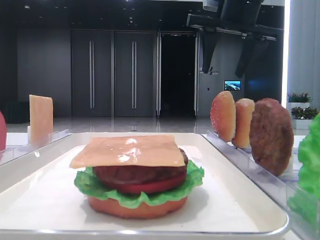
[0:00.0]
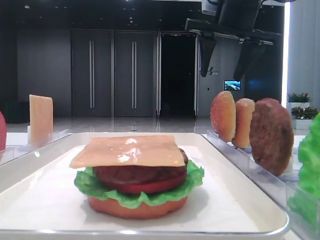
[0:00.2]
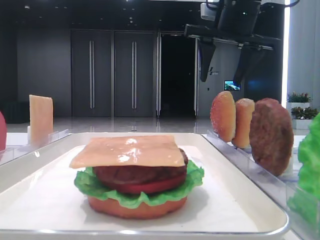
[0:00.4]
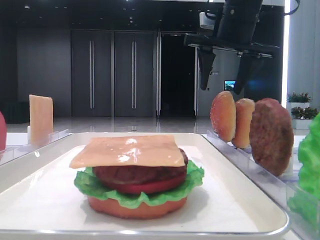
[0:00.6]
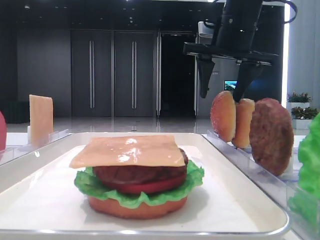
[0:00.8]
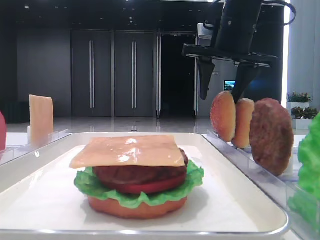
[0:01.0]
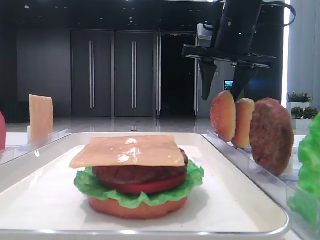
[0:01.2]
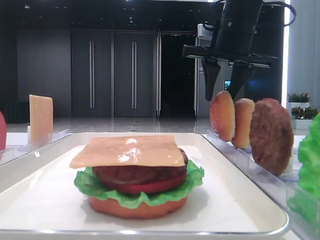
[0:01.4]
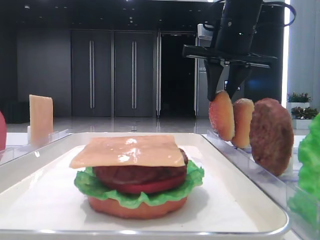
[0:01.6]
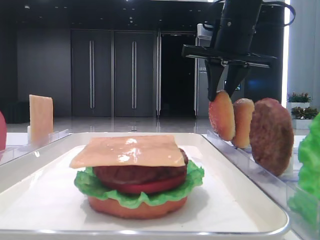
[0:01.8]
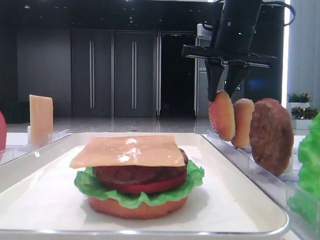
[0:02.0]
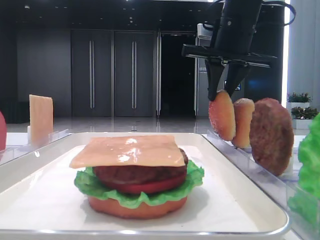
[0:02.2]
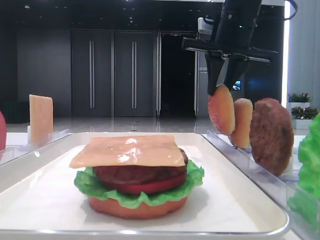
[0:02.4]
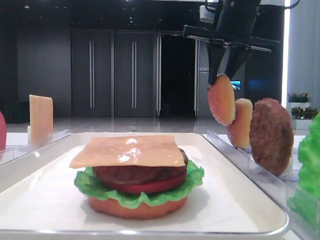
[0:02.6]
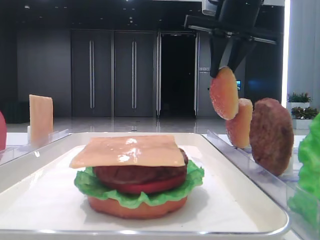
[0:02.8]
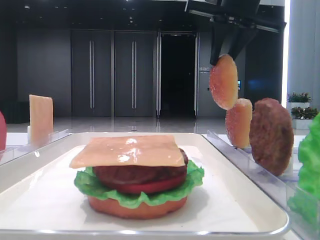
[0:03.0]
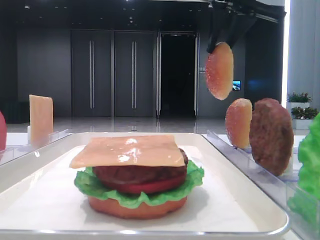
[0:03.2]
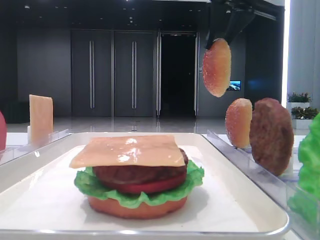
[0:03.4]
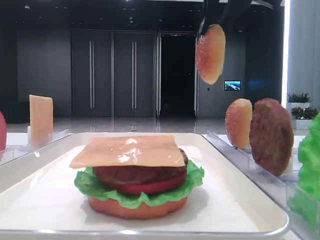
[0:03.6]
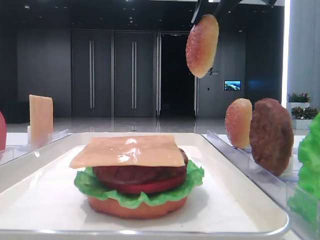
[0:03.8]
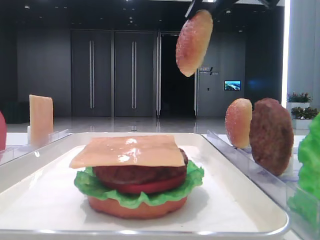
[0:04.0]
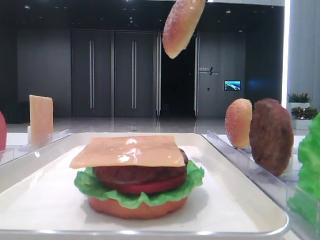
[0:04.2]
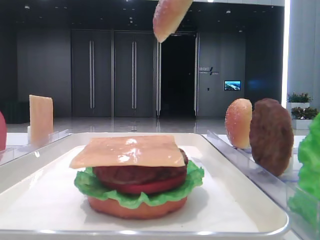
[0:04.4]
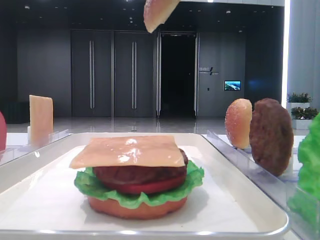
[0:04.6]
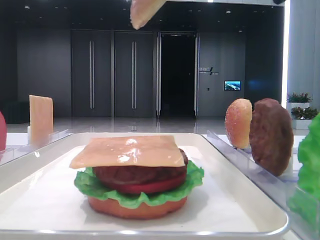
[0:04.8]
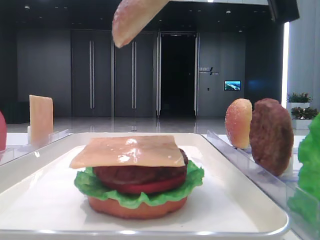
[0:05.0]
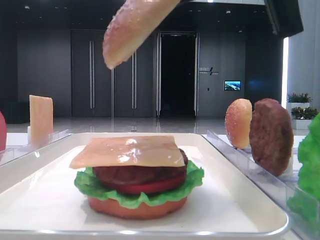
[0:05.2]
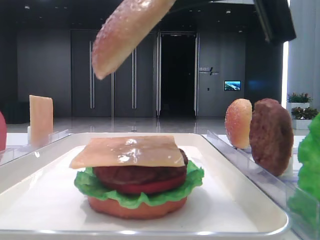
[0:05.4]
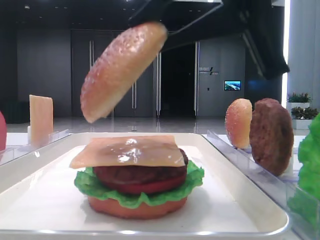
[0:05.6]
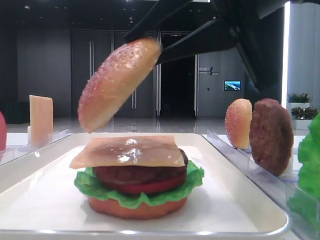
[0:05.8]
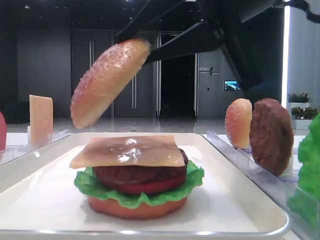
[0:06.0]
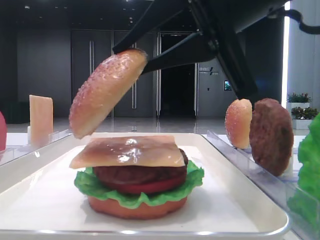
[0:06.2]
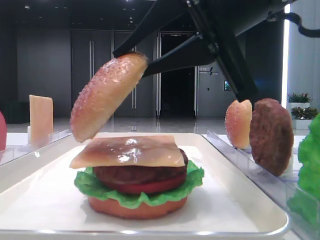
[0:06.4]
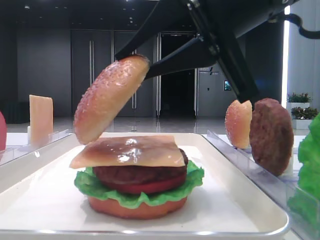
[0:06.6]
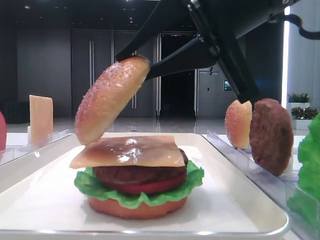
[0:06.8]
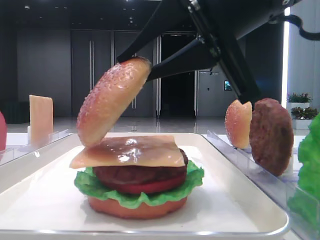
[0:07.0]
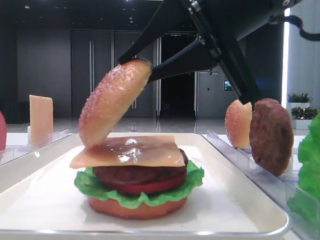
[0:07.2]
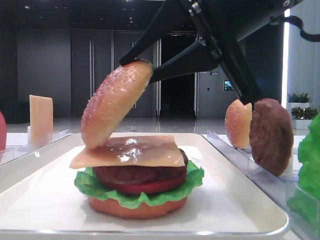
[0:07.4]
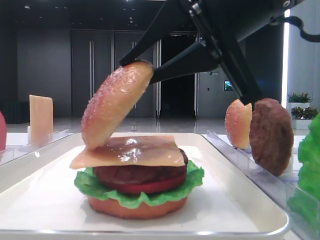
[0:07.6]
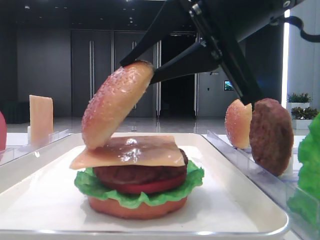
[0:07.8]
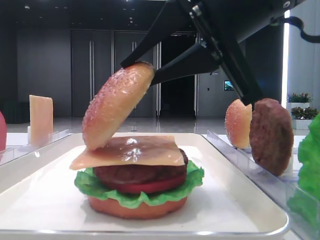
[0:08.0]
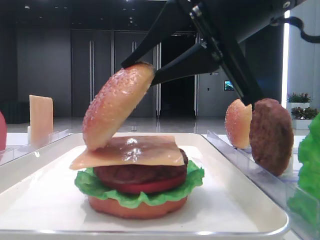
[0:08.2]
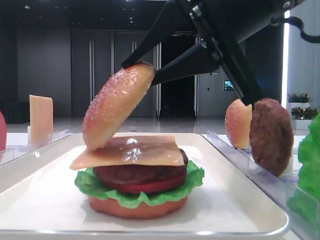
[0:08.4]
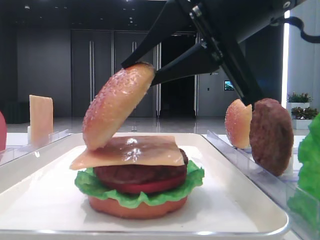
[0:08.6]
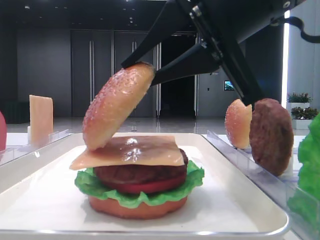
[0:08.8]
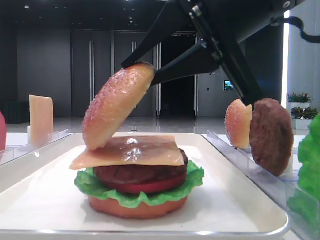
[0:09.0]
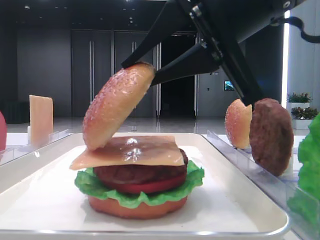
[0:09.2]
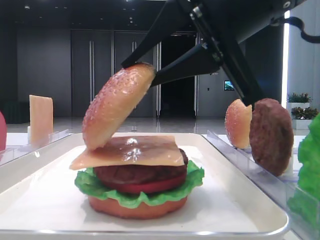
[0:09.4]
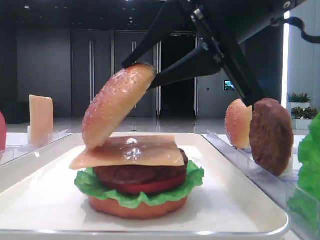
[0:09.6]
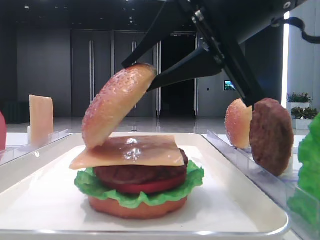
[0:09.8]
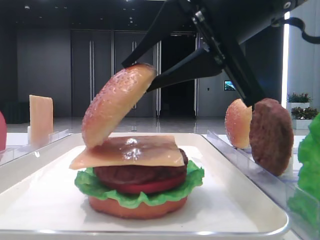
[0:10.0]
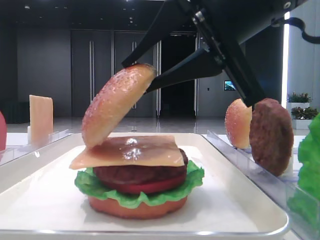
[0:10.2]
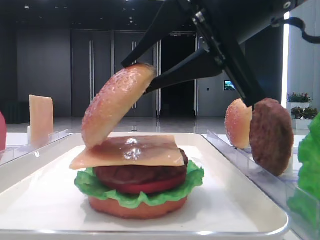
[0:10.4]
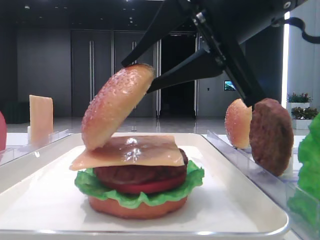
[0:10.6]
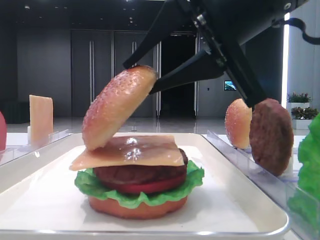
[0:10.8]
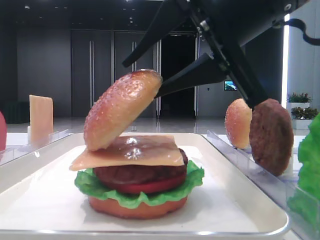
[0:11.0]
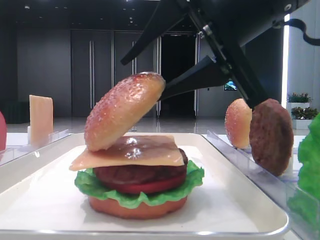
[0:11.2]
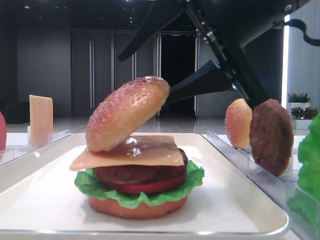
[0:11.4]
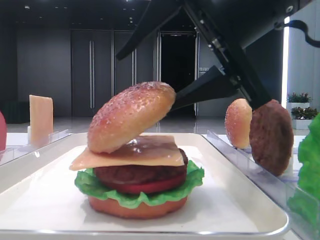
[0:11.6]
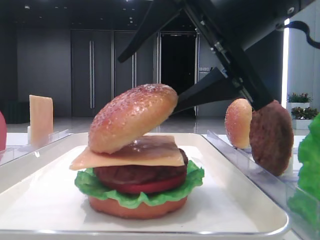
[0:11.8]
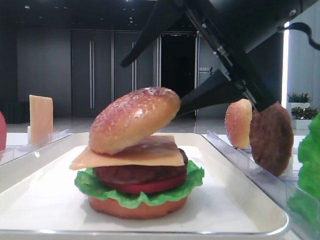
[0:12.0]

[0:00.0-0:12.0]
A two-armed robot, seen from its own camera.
Step, 0:00.0 to 0:02.0: Pick up the top bread slice with the right hand.
0:00.0 to 0:01.6: The right gripper closes up.
0:01.6 to 0:03.0: The right gripper moves upward, approximately 5 cm.
0:03.0 to 0:04.4: The right gripper heads backward, covering some 10 cm.
0:04.4 to 0:06.0: The right gripper travels downward and backward by roughly 15 cm.
0:06.0 to 0:07.6: Both grippers stay about where they are.
0:07.6 to 0:10.4: Neither gripper changes place.
0:10.4 to 0:12.0: The right gripper opens.

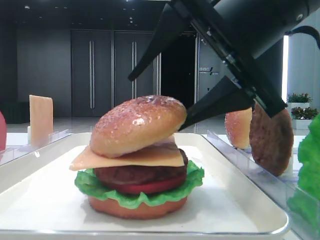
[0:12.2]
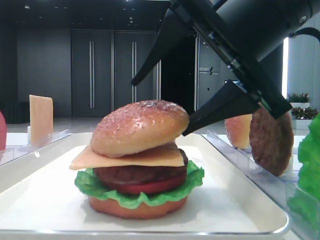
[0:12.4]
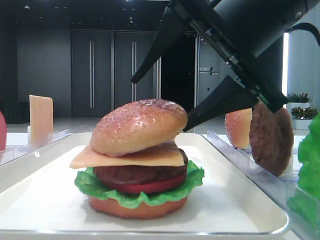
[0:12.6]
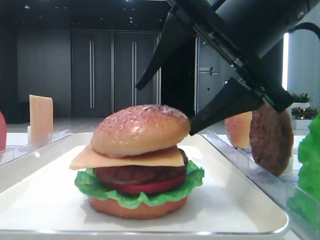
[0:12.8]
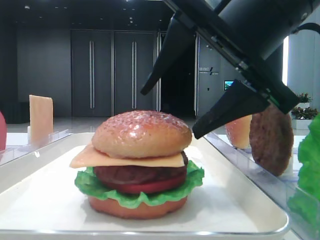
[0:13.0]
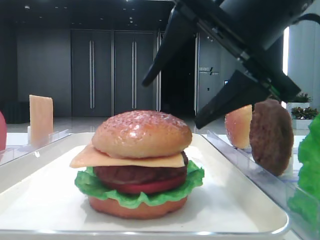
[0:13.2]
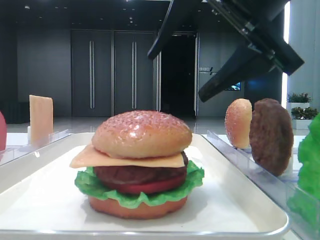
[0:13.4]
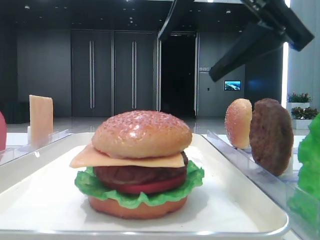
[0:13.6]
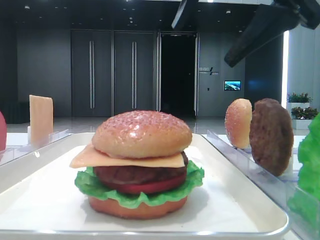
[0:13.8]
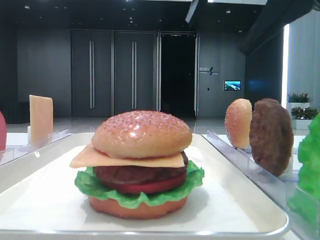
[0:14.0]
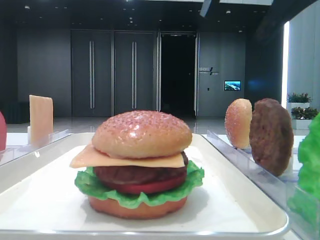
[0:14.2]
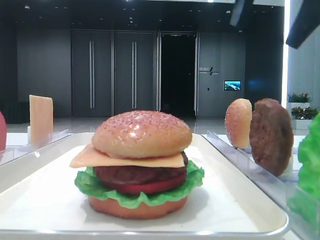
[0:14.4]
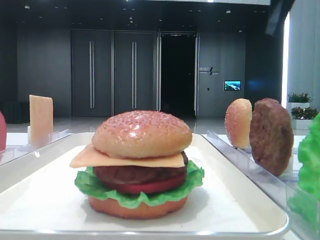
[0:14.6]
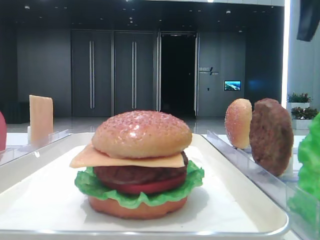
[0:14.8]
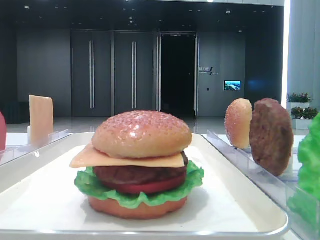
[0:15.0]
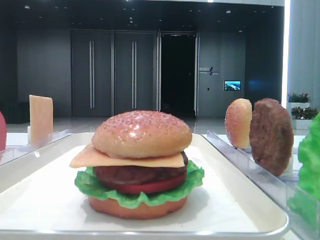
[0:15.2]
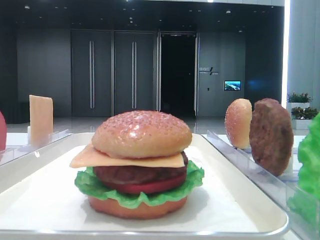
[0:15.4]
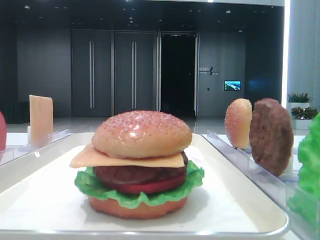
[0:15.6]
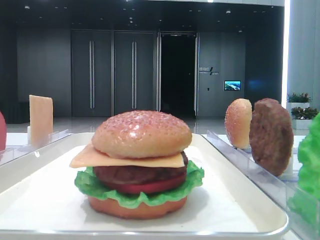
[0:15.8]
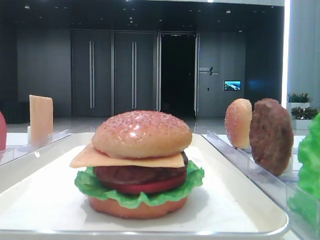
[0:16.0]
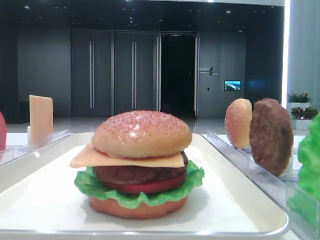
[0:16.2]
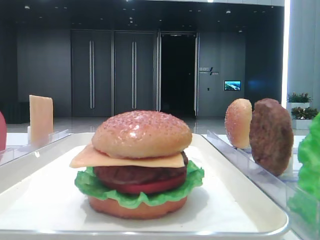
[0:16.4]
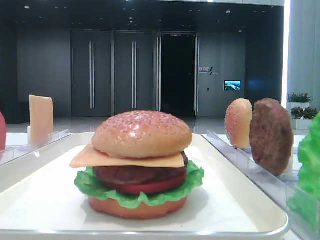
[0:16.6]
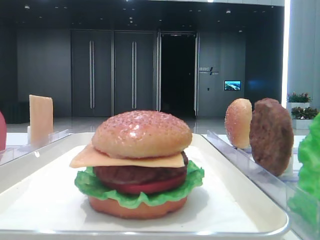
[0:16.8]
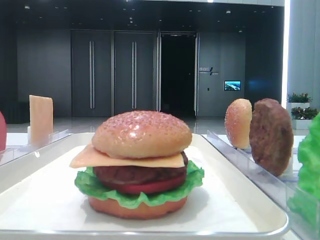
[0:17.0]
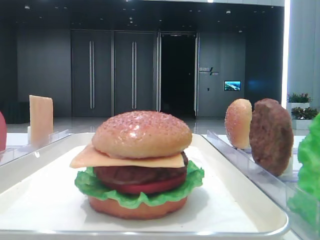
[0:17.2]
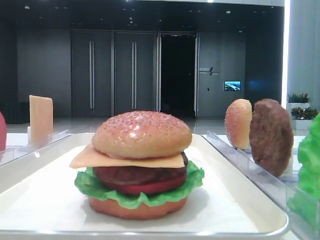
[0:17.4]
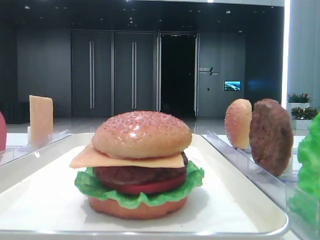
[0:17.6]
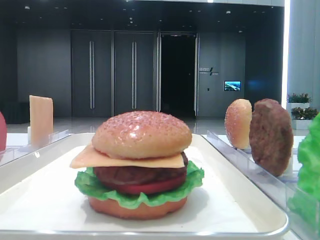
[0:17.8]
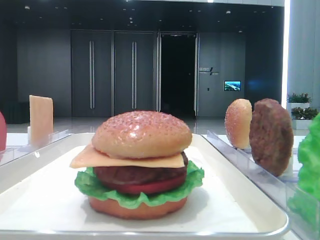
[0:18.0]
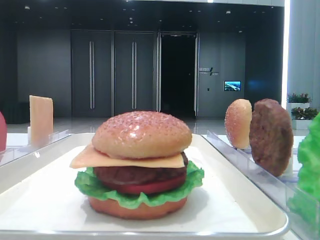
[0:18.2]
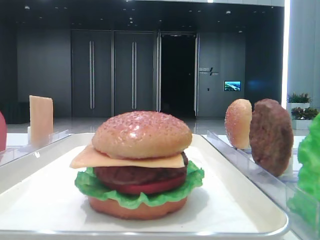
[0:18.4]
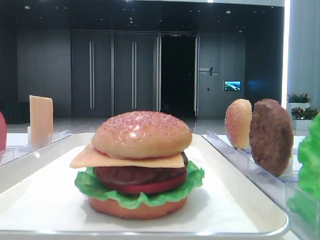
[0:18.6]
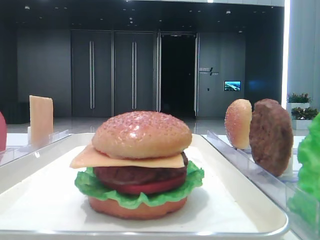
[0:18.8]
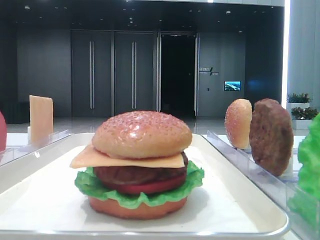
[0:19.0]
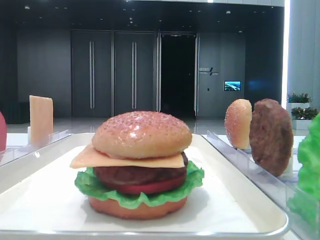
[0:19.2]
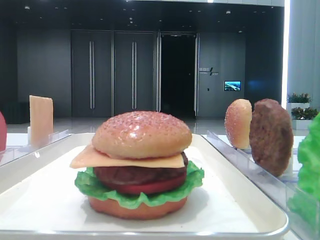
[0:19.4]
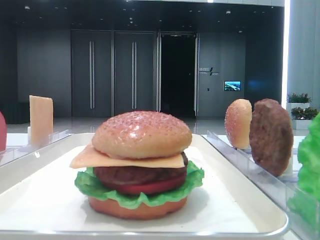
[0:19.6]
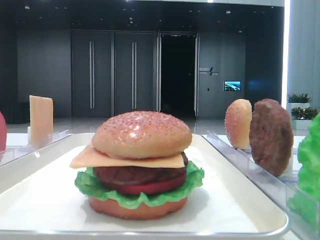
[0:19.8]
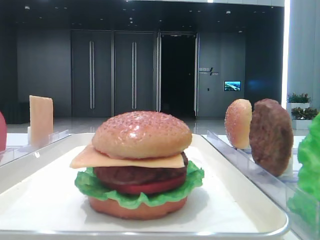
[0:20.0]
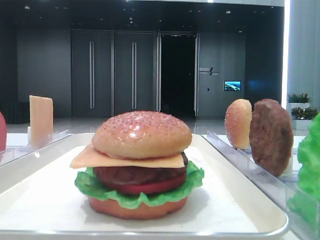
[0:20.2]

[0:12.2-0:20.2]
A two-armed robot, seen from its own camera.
0:12.2 to 0:13.8: The right gripper moves upward, some 5 cm.
0:13.8 to 0:15.4: The right gripper is displaced to the right by about 15 cm.
0:18.6 to 0:20.2: Both grippers stay about where they are.

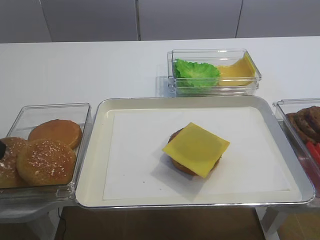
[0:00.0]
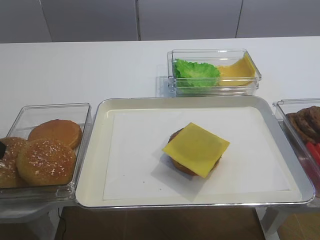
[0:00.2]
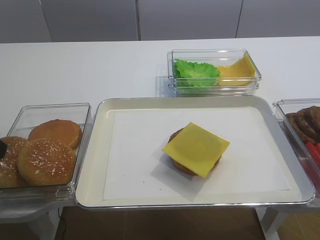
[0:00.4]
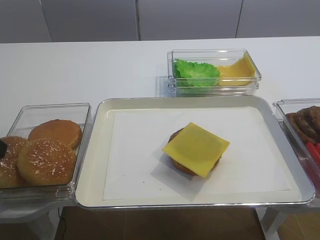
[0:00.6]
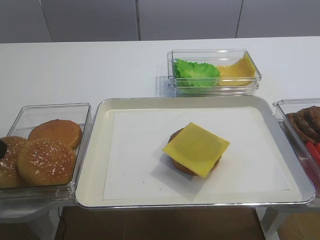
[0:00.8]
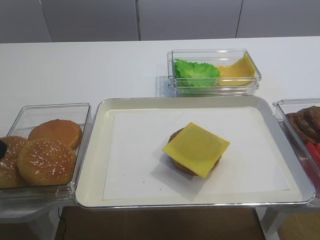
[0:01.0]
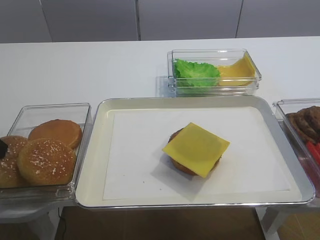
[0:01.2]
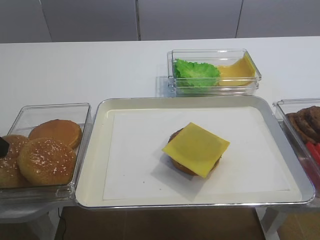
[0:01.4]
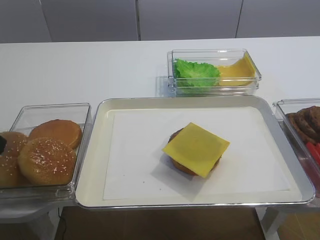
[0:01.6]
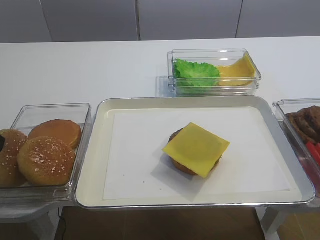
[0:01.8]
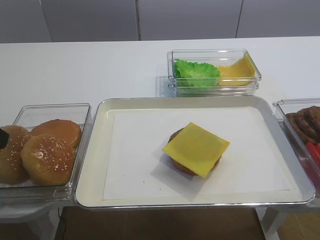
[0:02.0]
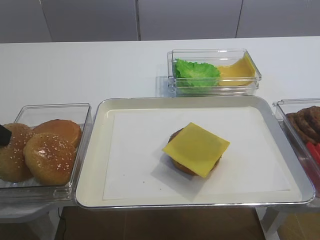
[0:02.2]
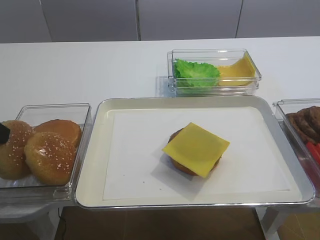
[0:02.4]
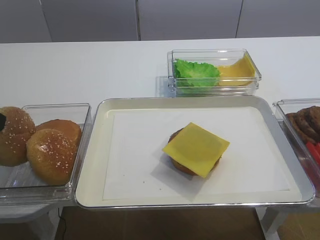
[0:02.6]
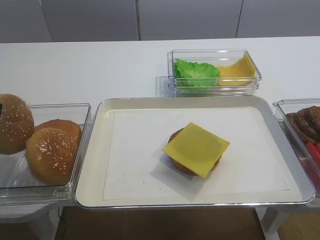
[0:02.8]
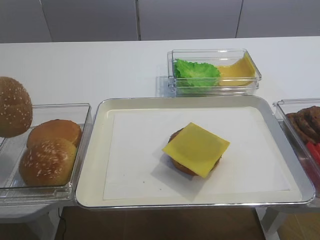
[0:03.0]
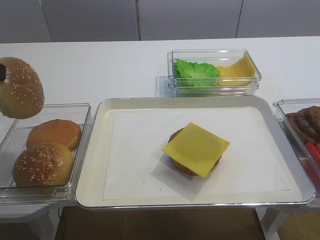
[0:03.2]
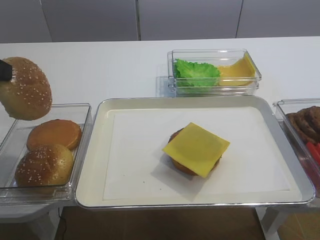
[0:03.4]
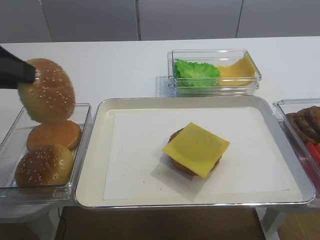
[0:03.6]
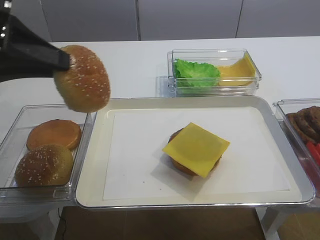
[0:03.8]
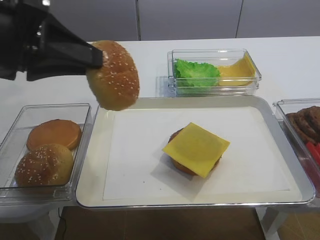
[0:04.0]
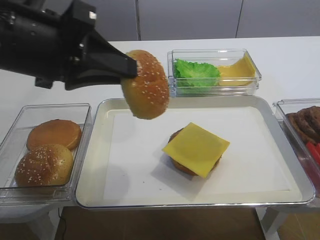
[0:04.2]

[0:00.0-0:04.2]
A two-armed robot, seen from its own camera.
Step, 0:00.0 to 0:03.2: Pick up the hamburger lid with the left gripper.
0:00.0 to 0:01.4: Neither gripper changes place.
0:01.4 to 0:02.8: The left gripper is displaced upward by roughly 5 cm.
0:02.8 to 0:04.2: The left gripper heads to the right, covering about 15 cm.
